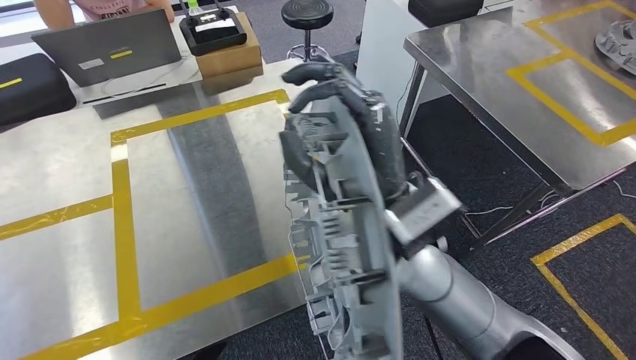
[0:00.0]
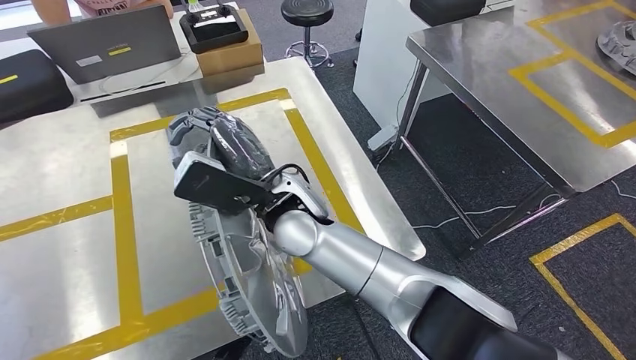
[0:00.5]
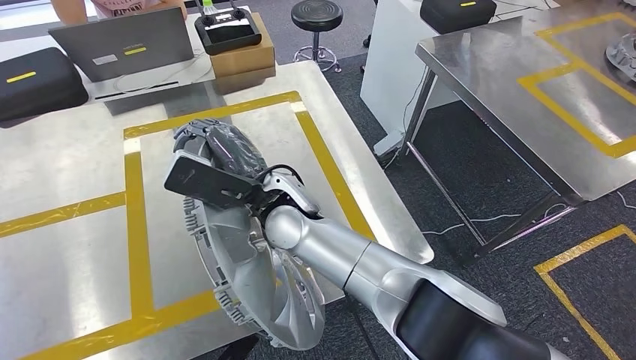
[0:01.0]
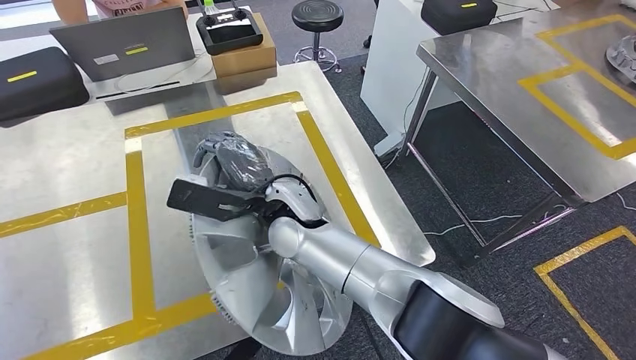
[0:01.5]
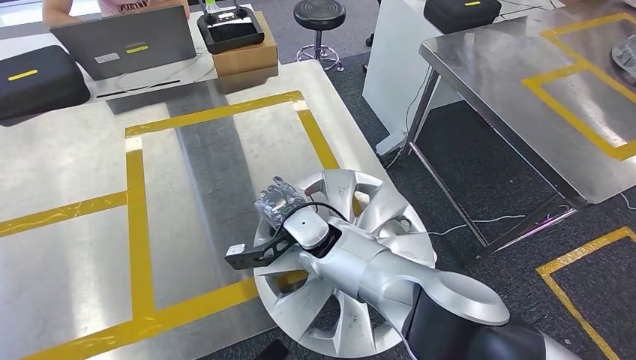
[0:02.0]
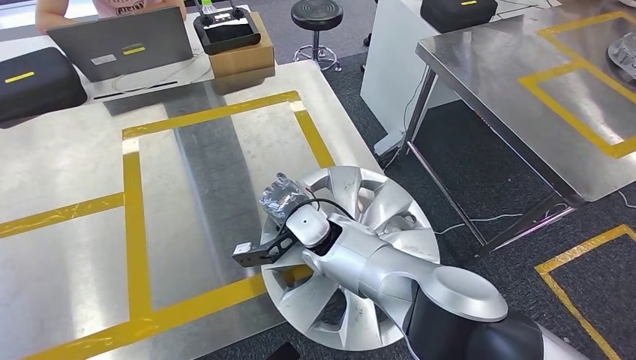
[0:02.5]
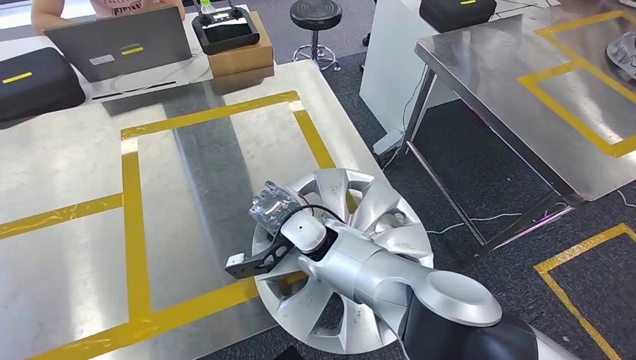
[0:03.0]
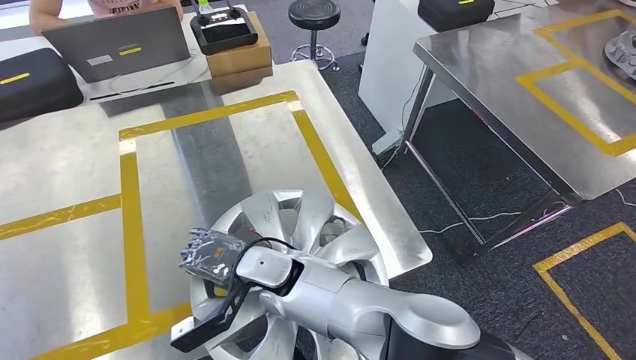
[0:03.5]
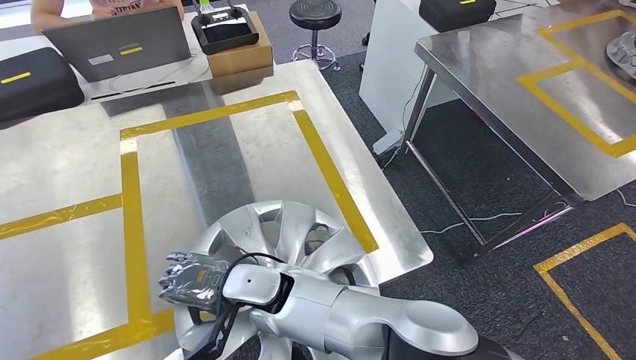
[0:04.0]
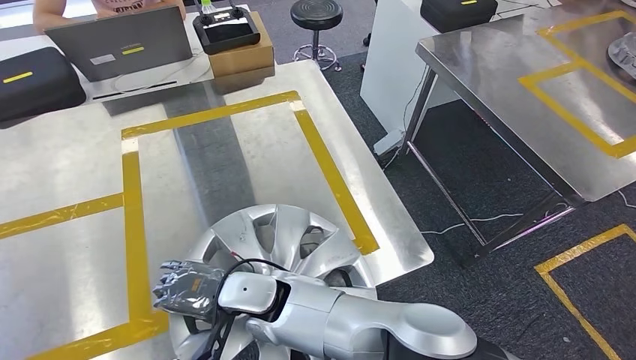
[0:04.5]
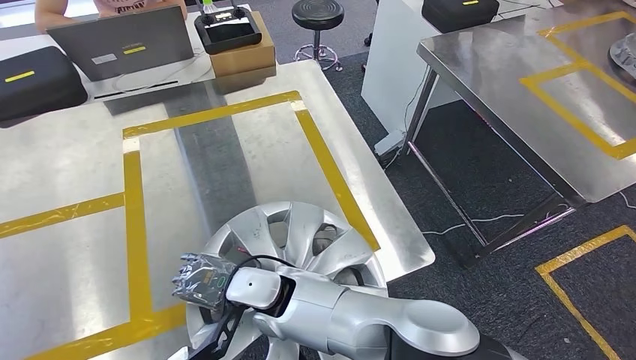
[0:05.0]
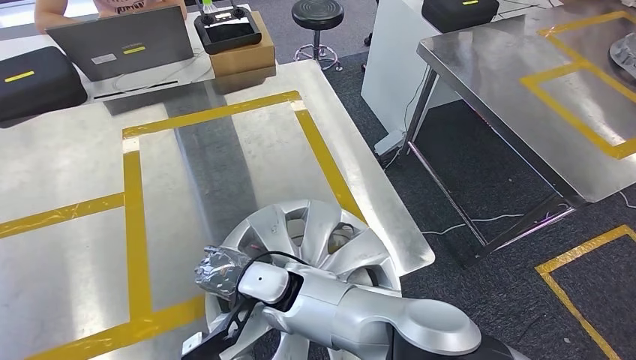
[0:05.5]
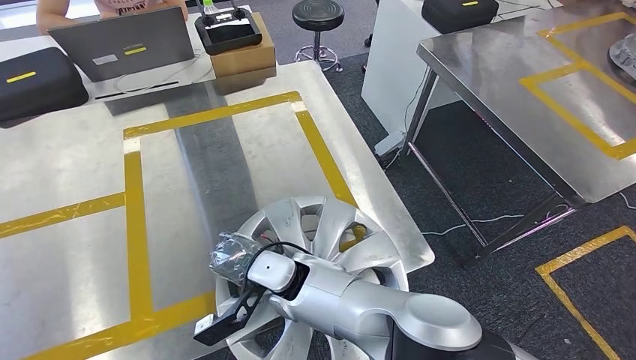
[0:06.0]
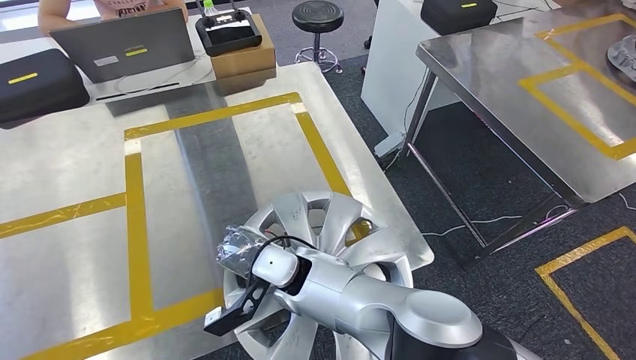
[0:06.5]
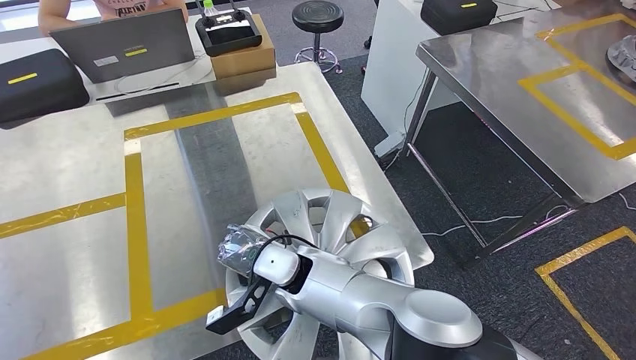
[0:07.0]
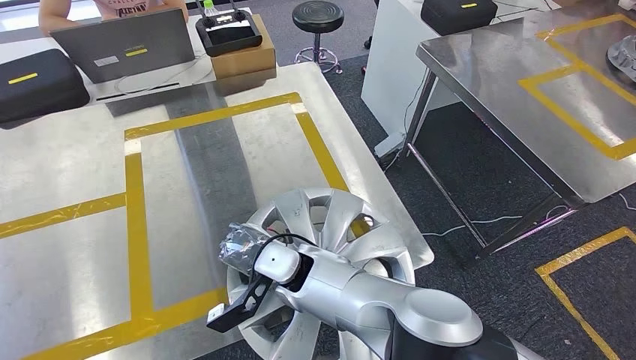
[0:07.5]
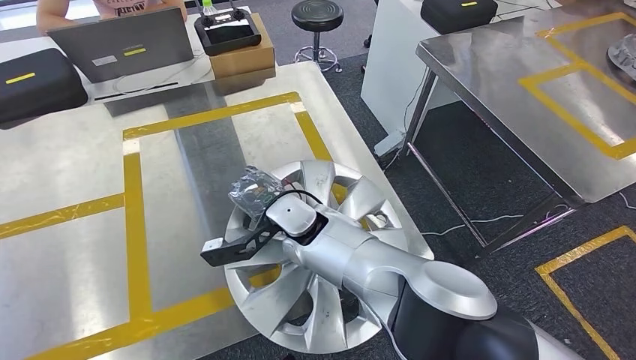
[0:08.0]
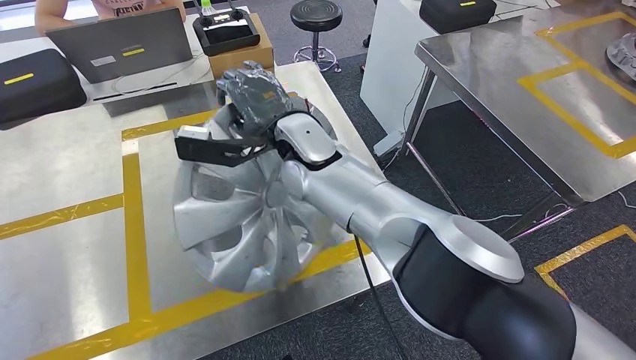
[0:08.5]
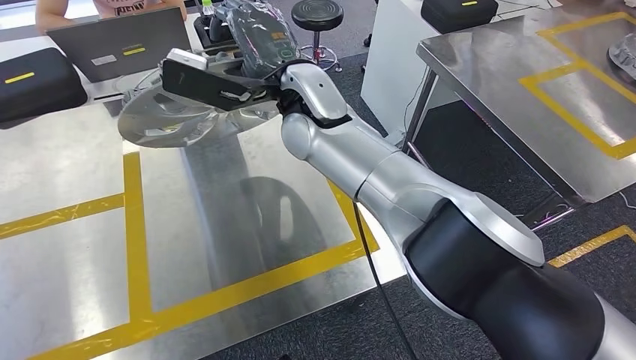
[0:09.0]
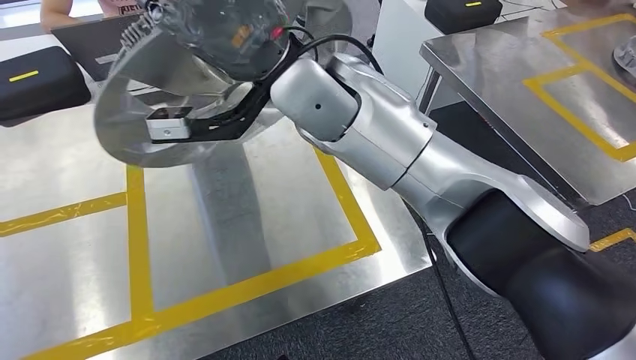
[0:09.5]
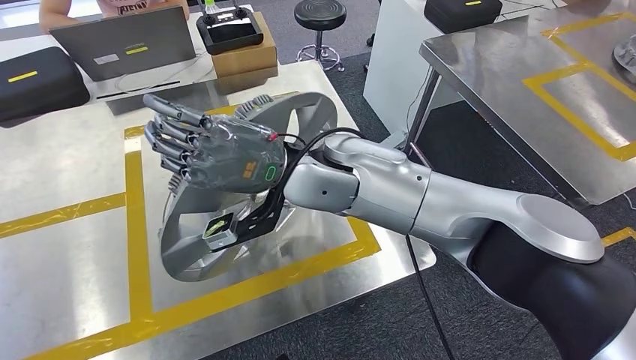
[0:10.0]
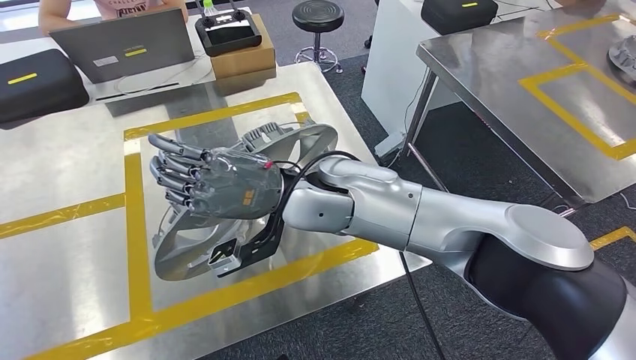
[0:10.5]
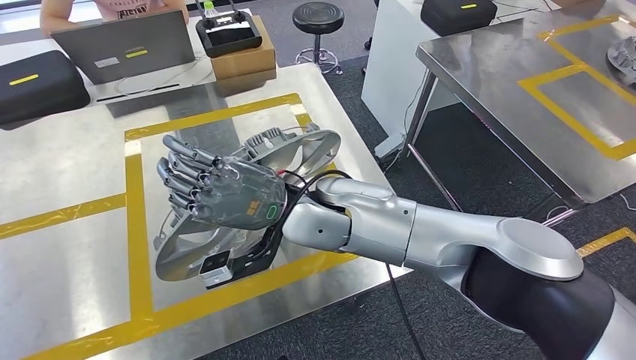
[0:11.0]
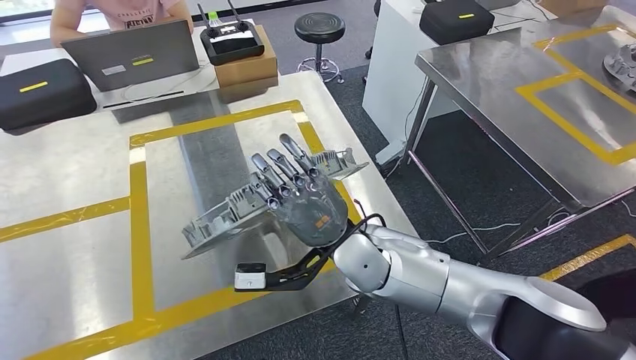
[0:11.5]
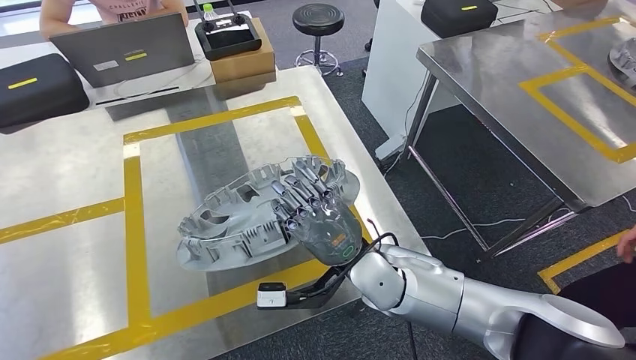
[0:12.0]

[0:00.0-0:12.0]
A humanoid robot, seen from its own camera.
0:06.0 to 0:08.0: The right hand goes some 10 cm forward and upward.

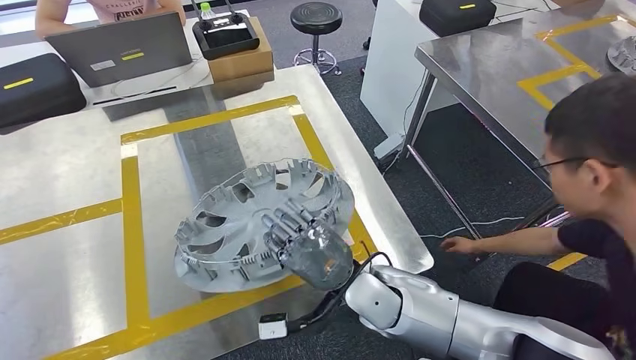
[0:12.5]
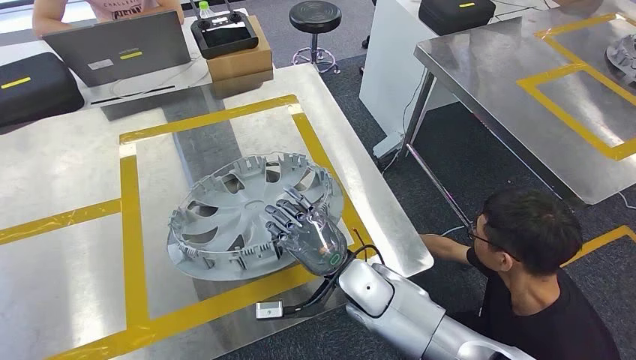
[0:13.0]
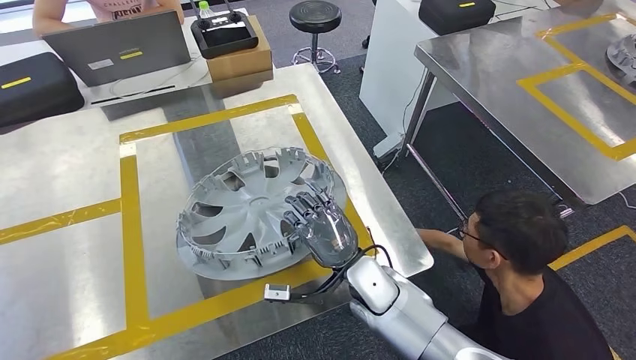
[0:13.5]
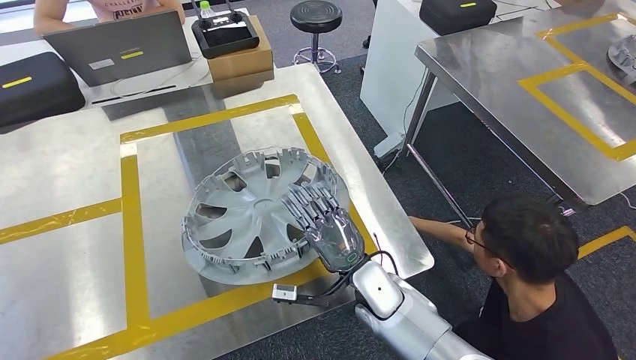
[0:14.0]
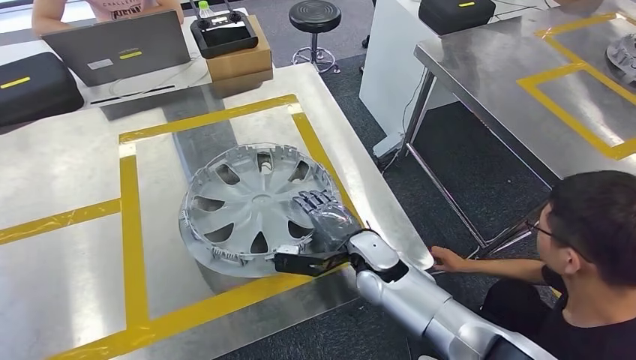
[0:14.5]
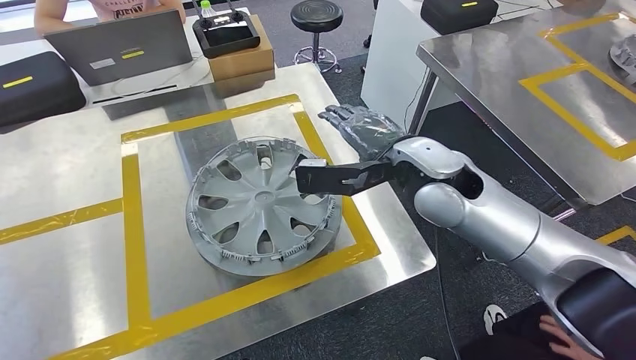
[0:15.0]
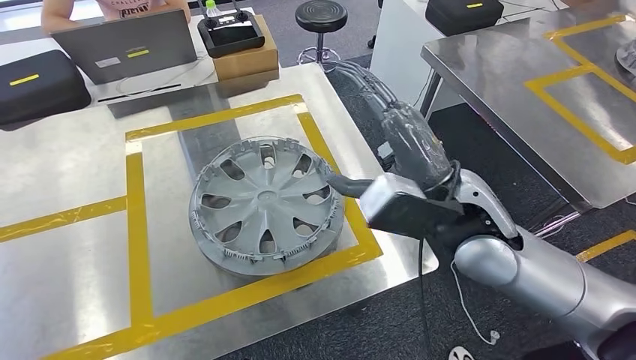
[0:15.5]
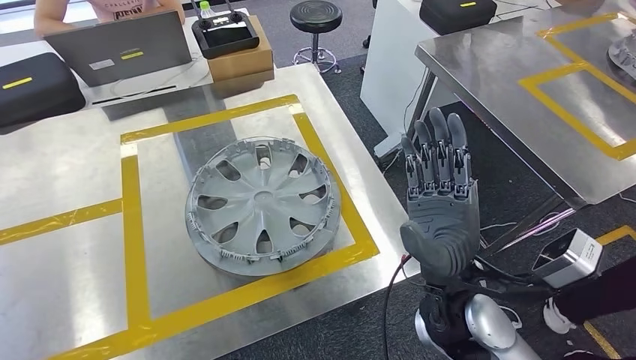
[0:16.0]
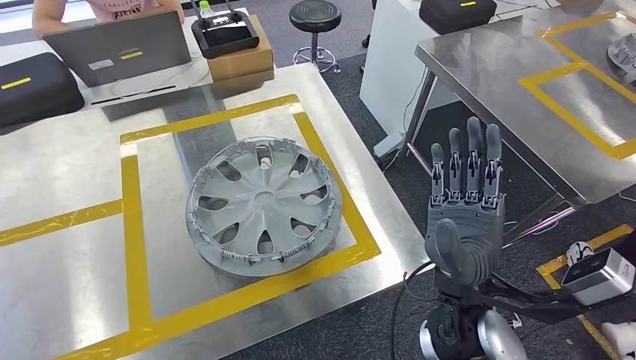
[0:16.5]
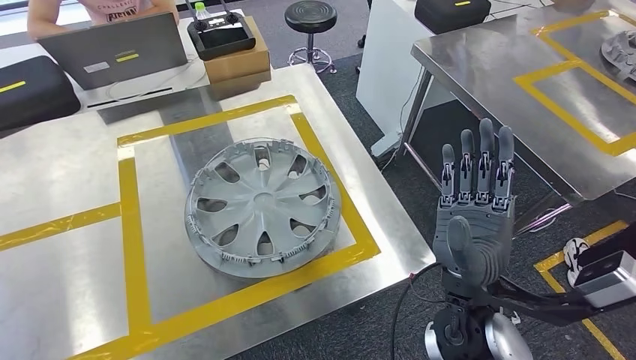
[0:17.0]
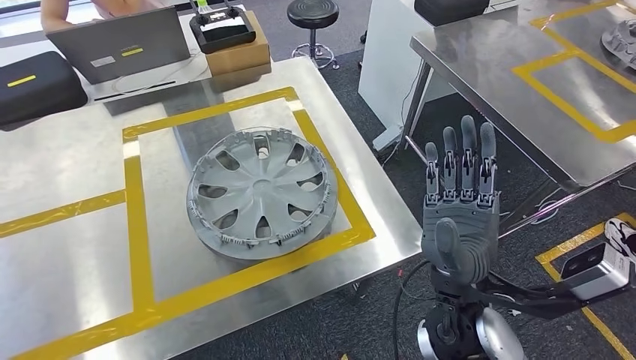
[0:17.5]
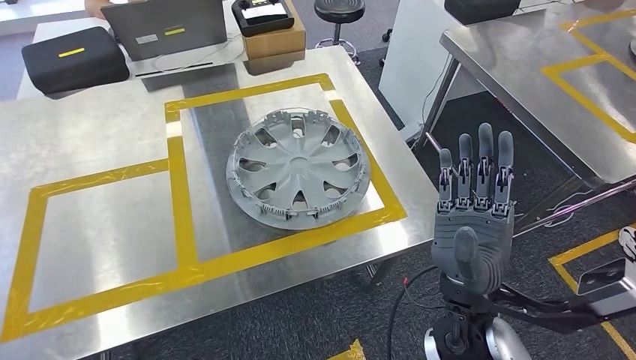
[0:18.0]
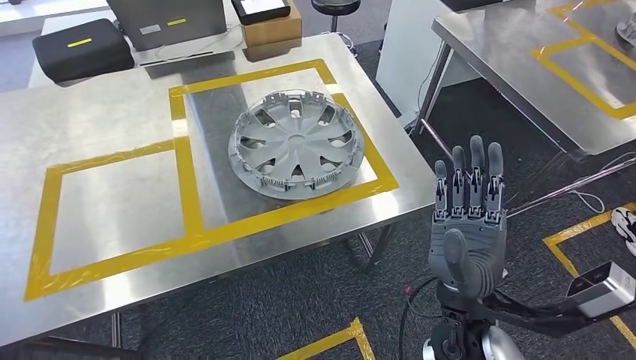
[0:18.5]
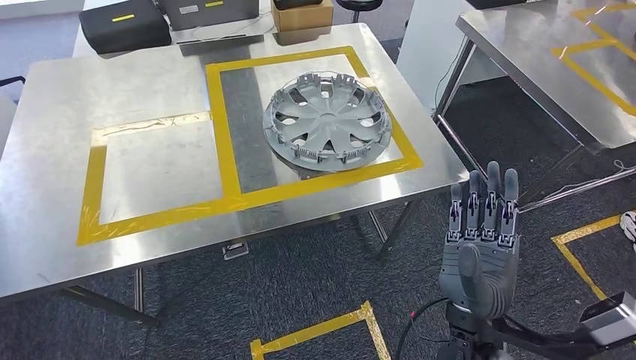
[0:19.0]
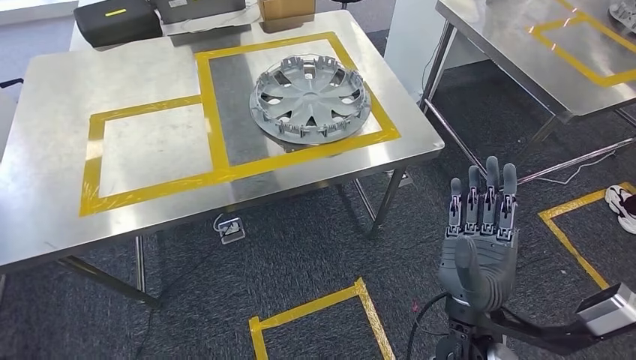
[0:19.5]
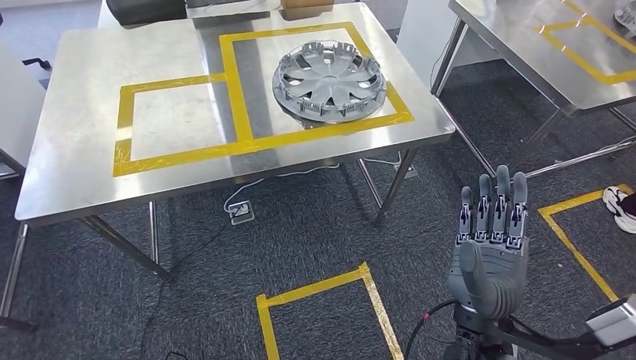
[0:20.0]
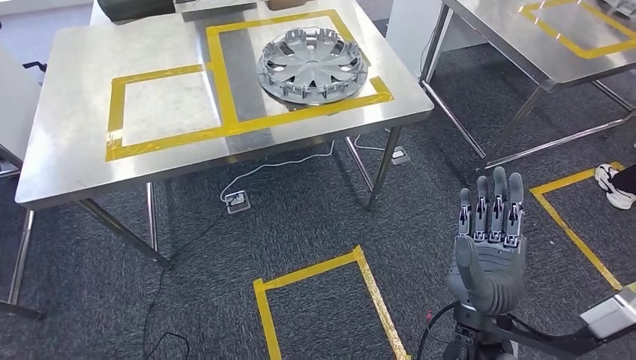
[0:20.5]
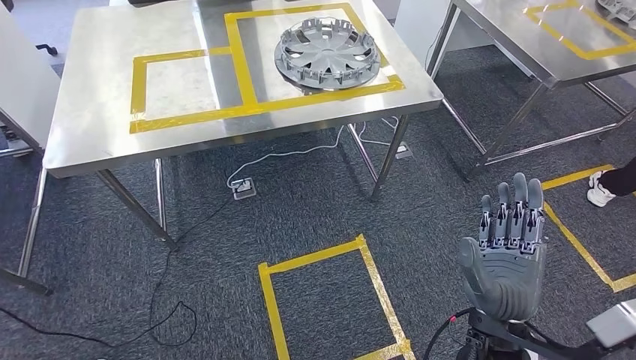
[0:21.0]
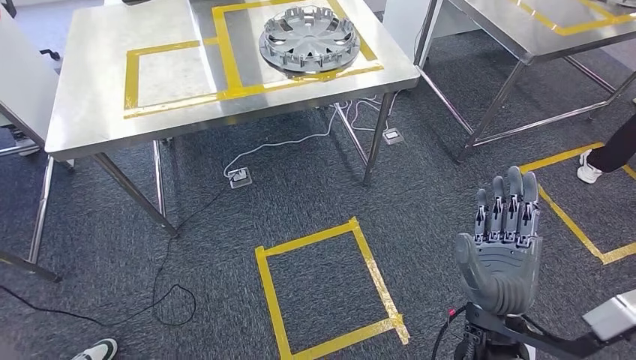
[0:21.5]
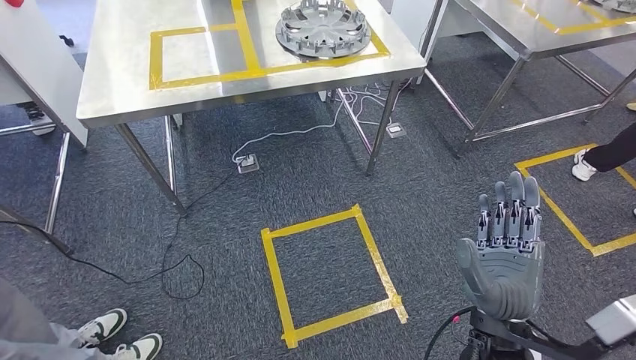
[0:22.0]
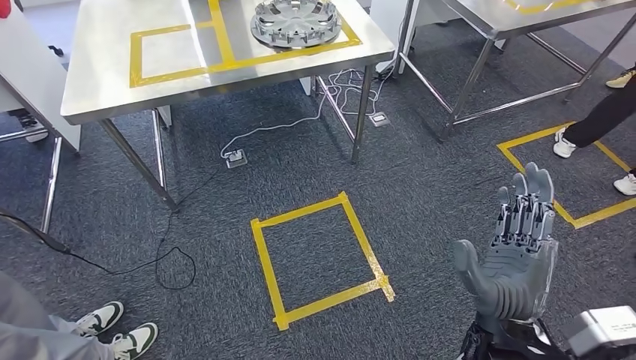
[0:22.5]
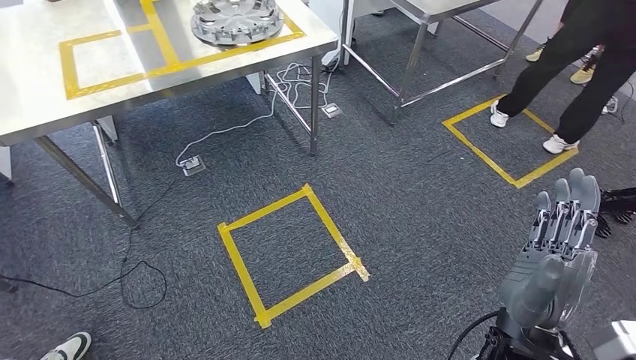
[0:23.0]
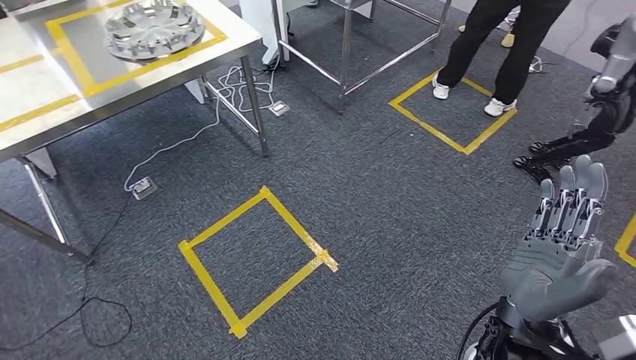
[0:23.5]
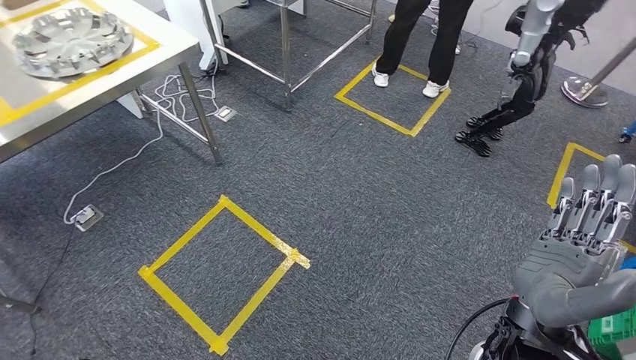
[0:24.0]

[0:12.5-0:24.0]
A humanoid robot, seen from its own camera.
Step, 0:12.5 to 0:16.0: Insert the small component into the corresponding slot on the workbench.
